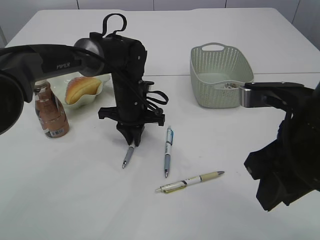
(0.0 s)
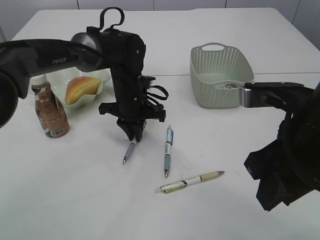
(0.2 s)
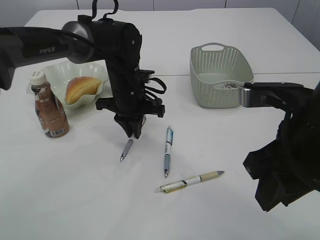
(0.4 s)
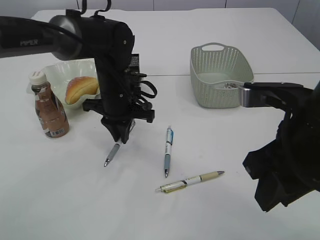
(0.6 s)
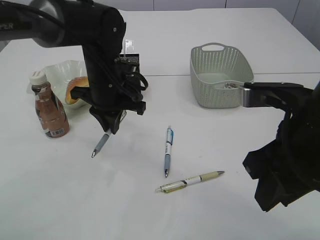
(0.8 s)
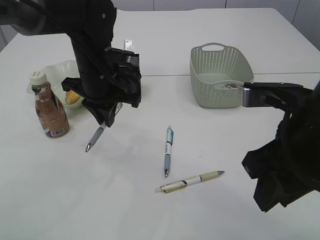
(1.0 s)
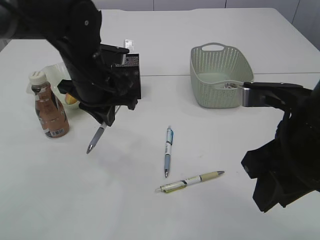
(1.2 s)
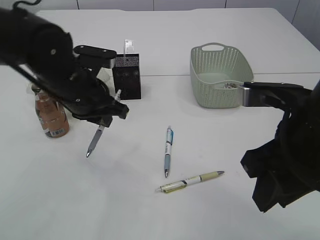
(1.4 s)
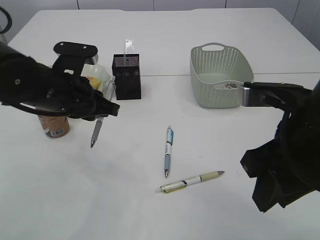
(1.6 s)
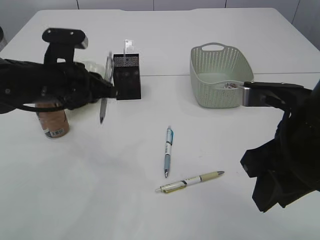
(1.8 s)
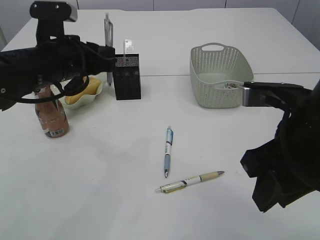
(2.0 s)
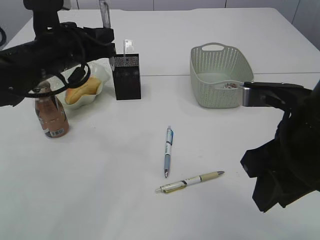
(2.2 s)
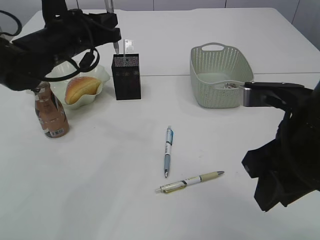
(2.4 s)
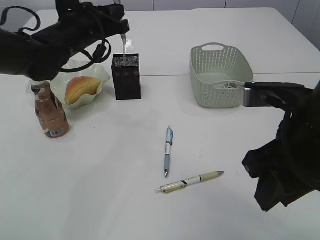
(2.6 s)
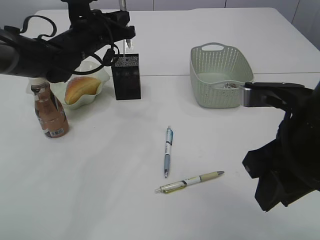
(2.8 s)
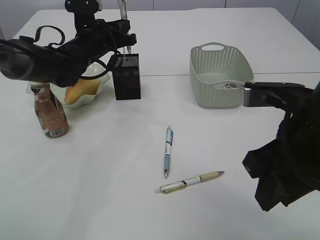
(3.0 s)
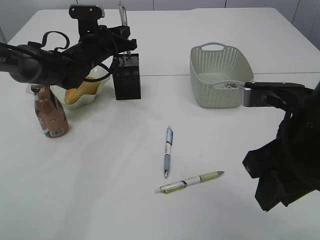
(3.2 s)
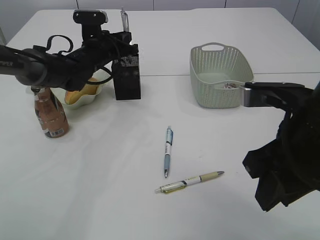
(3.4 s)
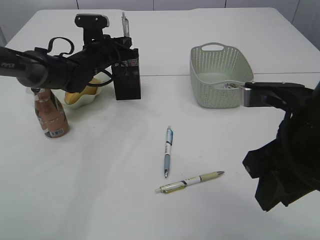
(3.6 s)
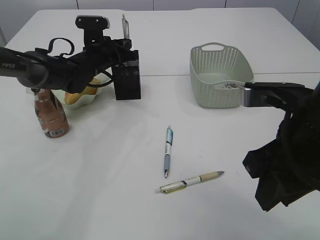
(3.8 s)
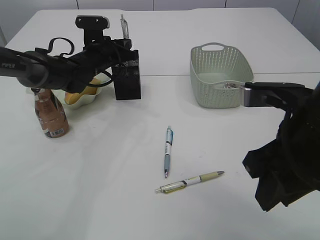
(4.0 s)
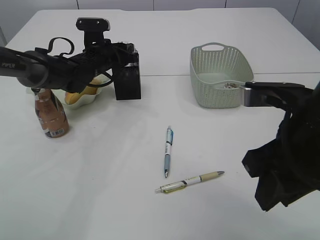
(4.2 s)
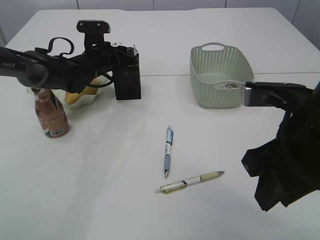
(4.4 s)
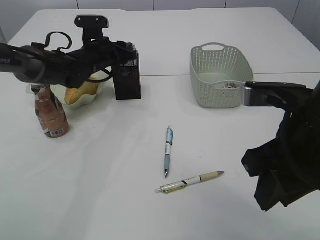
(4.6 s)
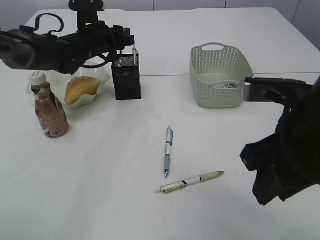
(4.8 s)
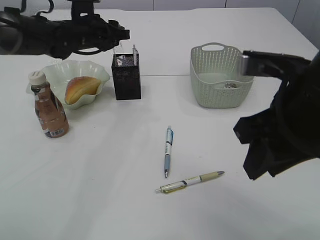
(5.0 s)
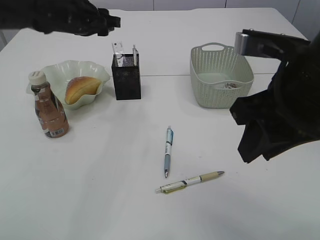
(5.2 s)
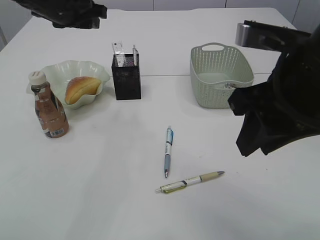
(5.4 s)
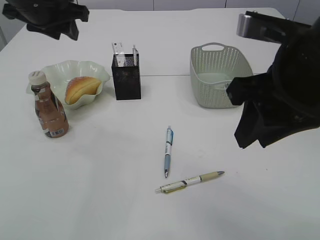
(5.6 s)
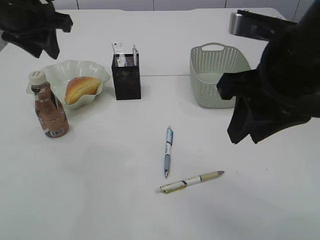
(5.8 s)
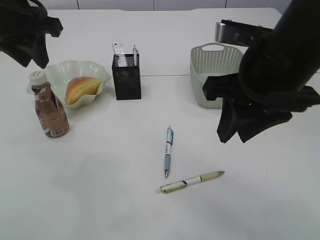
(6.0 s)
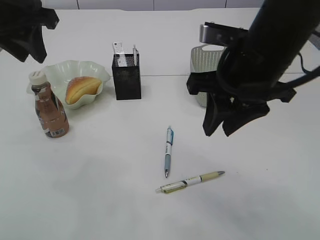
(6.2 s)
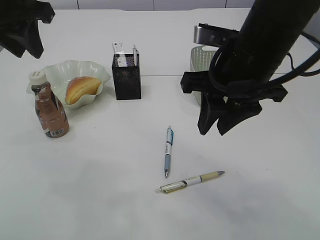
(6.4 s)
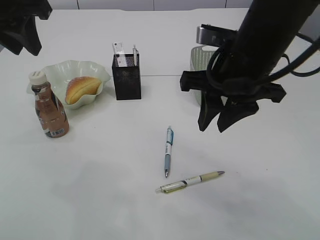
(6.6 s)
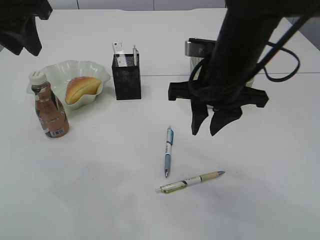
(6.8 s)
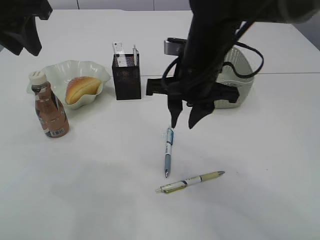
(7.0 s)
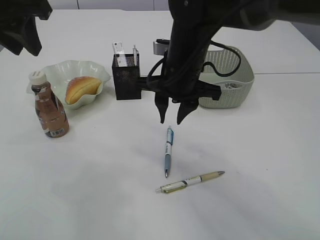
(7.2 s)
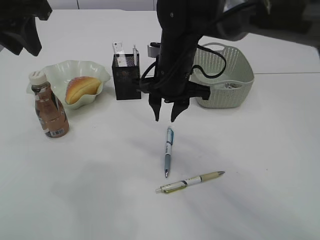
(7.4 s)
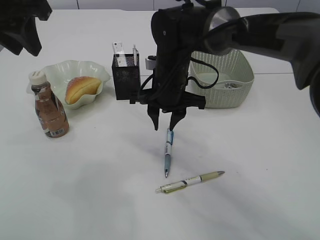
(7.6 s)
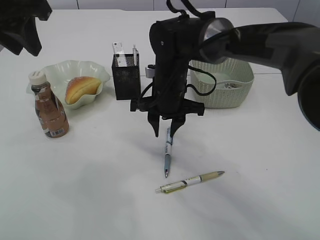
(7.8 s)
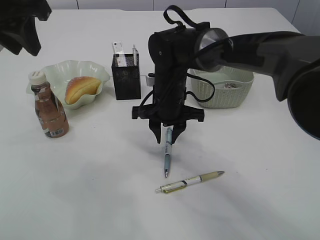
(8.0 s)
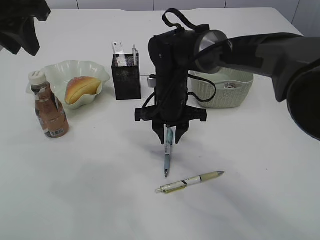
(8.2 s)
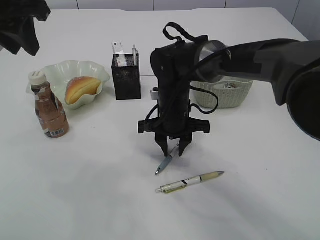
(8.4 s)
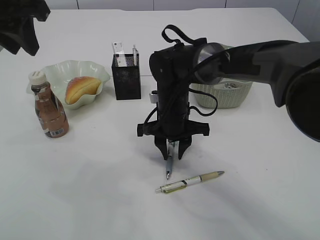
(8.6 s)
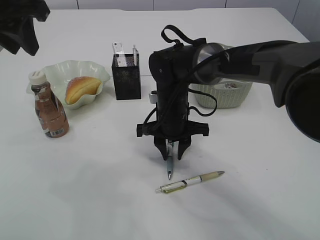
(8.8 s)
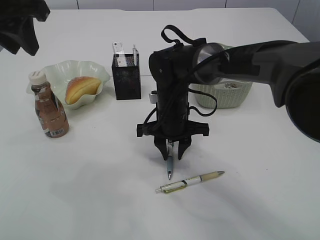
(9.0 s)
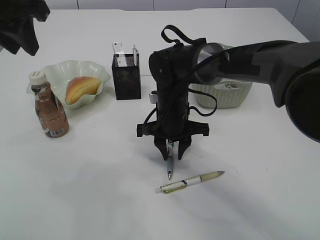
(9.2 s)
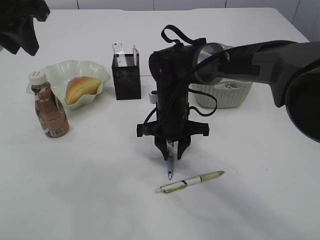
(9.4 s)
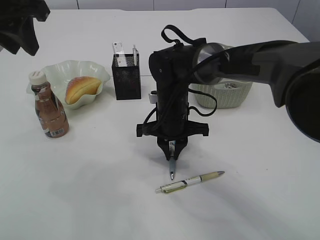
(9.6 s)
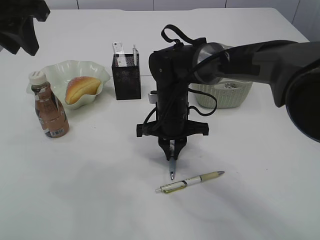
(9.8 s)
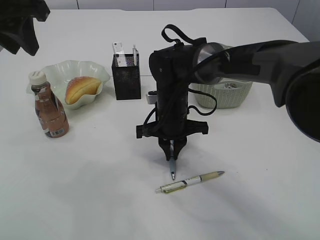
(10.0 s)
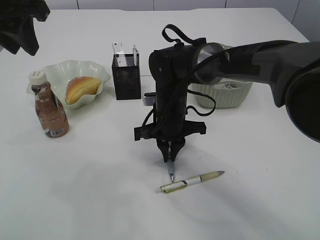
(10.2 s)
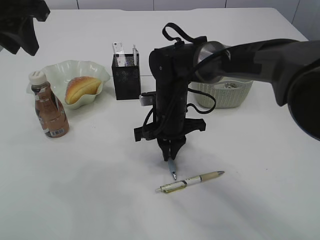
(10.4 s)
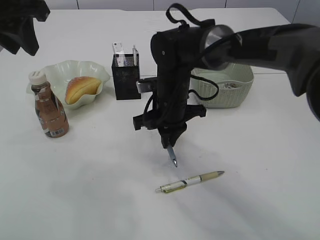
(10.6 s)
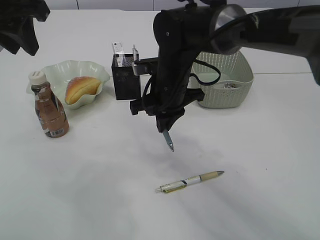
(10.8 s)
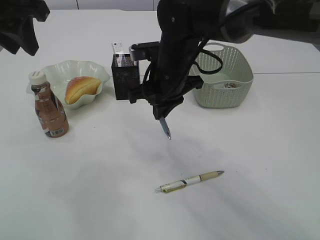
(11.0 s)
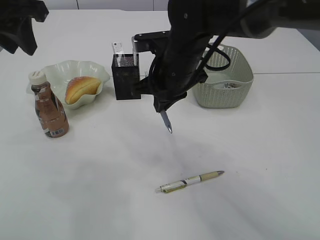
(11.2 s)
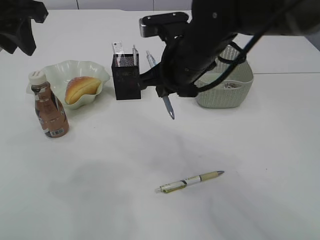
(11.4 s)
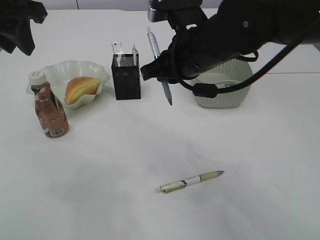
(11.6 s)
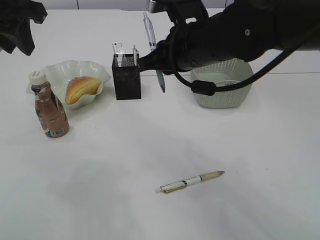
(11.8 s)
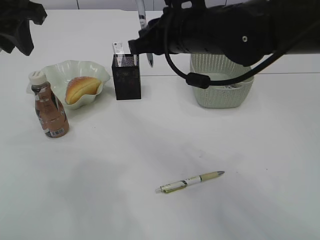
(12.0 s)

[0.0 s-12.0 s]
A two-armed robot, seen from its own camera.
Step, 1.6 to 5.0 s: Place the pen into the pen holder.
Step, 5.2 to 11.2 s: Pick up the pen with right arm.
0.0 to 1.6 s: The left gripper moves backward, upward and to the left, approximately 15 cm.
1.6 to 3.0 s: The left gripper goes some 15 cm forward.
3.0 to 4.4 s: The left gripper travels downward by roughly 5 cm, and opens its fingers.
4.4 to 6.0 s: The right gripper goes approximately 5 cm forward. The left gripper shifts some 25 cm upward and backward.
6.0 to 7.6 s: The right gripper moves forward, downward and to the left, some 20 cm.
7.6 to 9.0 s: The right gripper moves downward, approximately 5 cm.
9.0 to 10.4 s: The right gripper closes up.
10.4 to 12.0 s: The right gripper travels upward by about 15 cm.

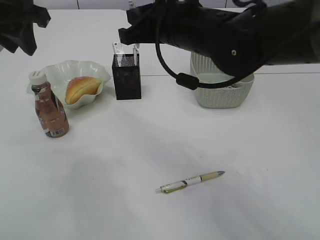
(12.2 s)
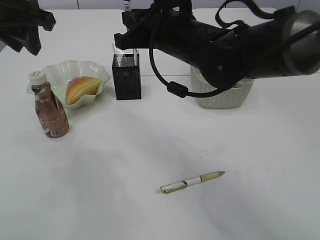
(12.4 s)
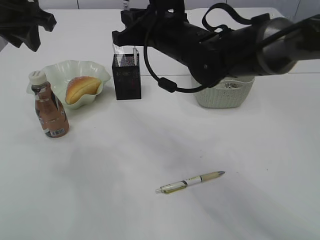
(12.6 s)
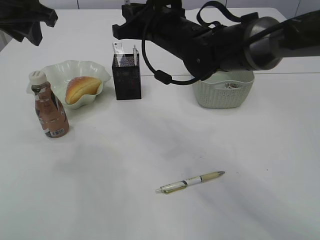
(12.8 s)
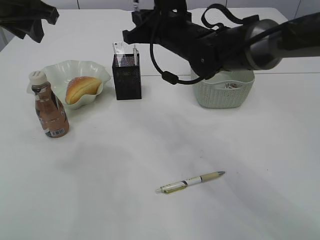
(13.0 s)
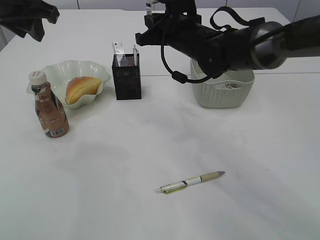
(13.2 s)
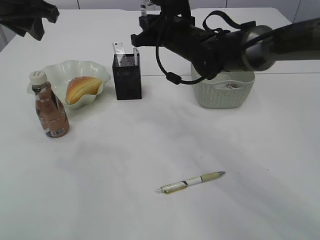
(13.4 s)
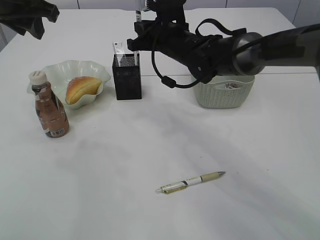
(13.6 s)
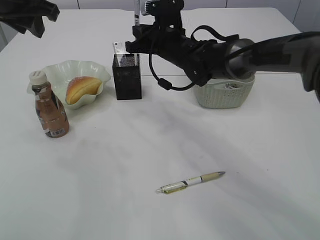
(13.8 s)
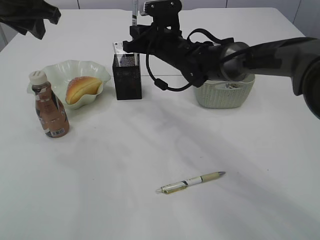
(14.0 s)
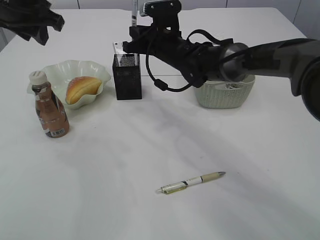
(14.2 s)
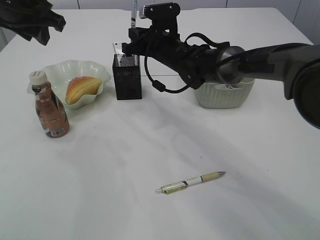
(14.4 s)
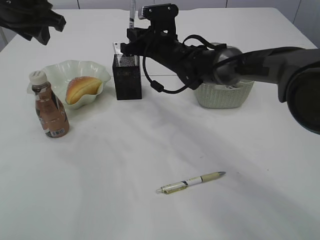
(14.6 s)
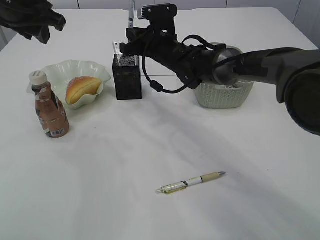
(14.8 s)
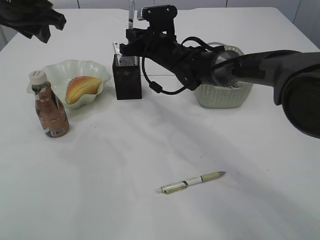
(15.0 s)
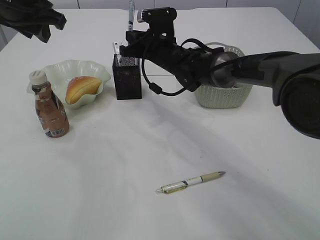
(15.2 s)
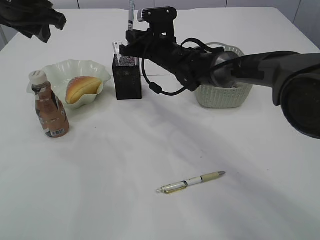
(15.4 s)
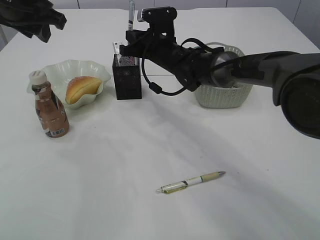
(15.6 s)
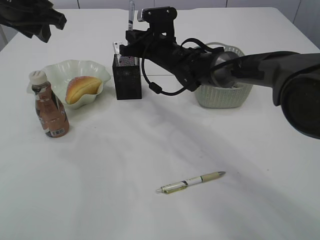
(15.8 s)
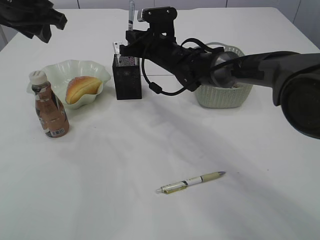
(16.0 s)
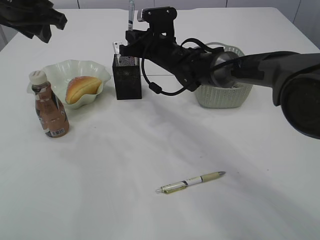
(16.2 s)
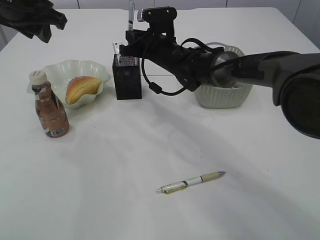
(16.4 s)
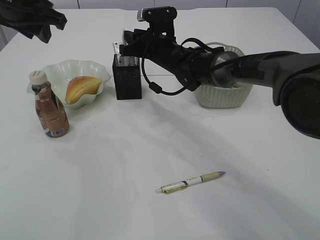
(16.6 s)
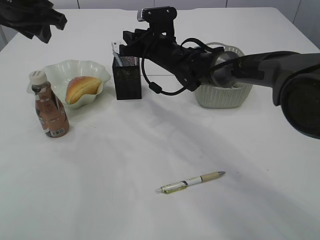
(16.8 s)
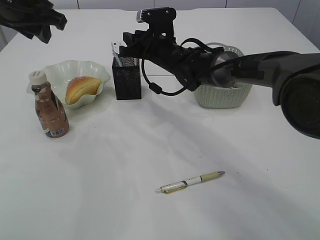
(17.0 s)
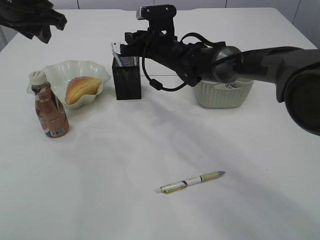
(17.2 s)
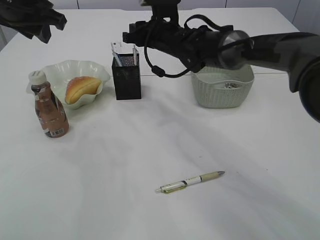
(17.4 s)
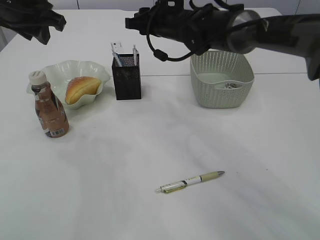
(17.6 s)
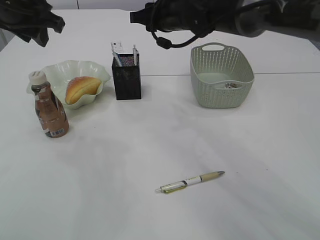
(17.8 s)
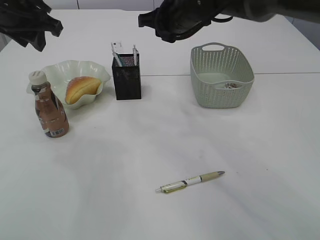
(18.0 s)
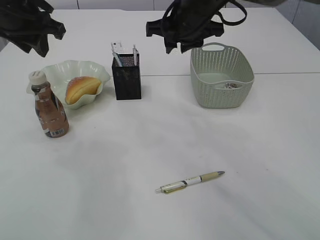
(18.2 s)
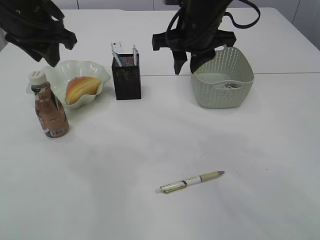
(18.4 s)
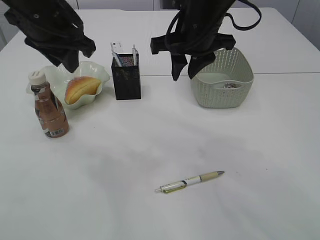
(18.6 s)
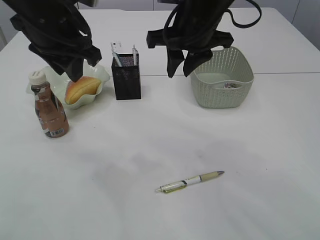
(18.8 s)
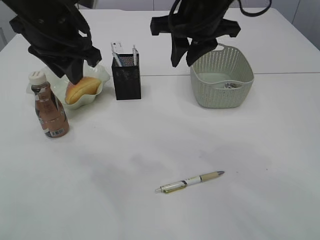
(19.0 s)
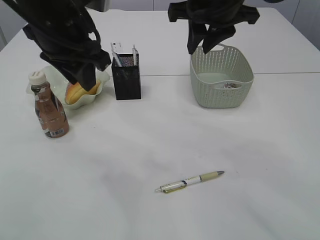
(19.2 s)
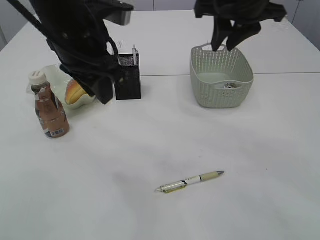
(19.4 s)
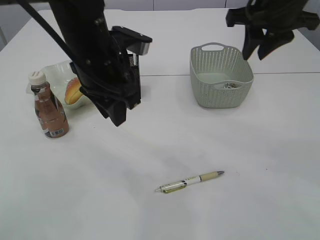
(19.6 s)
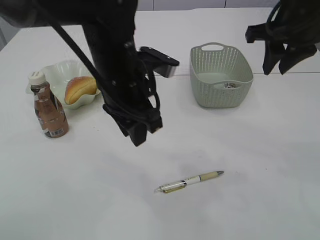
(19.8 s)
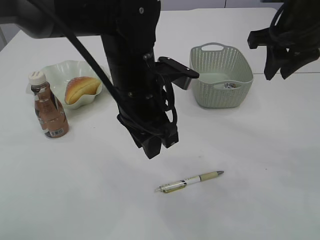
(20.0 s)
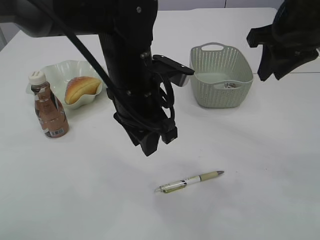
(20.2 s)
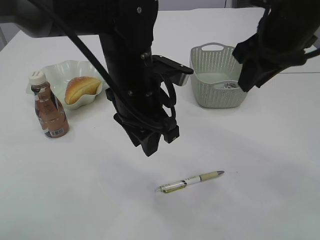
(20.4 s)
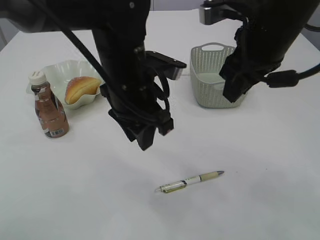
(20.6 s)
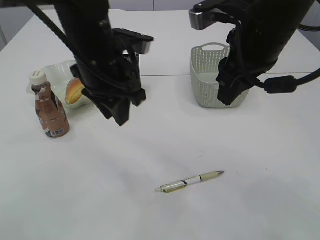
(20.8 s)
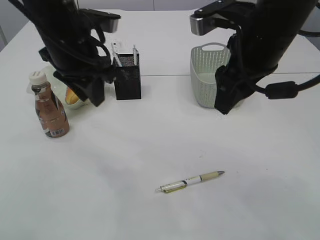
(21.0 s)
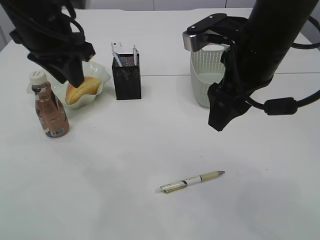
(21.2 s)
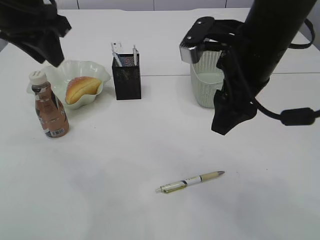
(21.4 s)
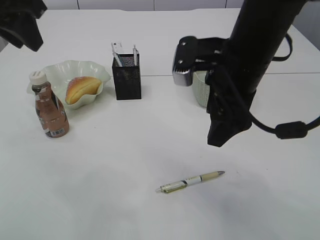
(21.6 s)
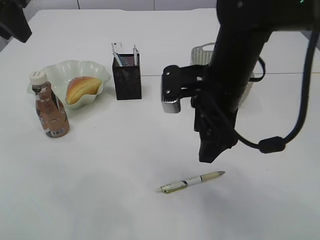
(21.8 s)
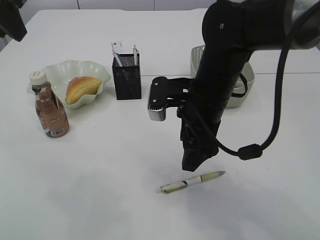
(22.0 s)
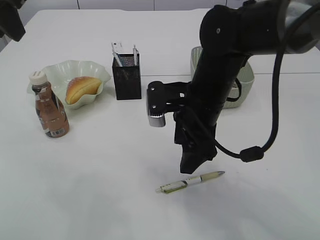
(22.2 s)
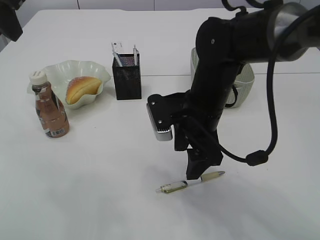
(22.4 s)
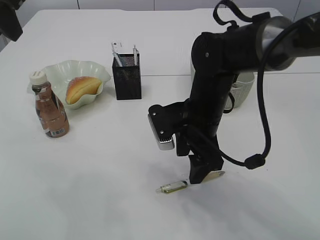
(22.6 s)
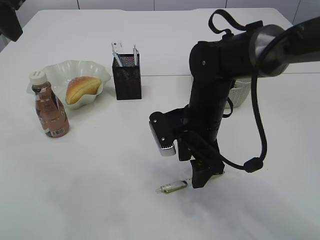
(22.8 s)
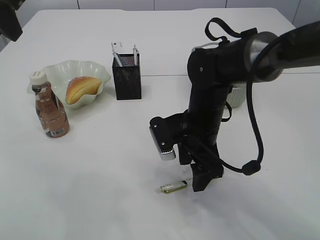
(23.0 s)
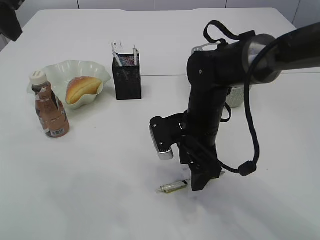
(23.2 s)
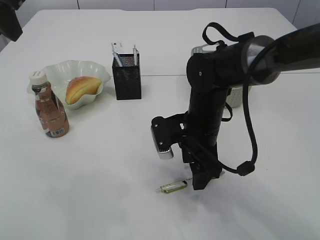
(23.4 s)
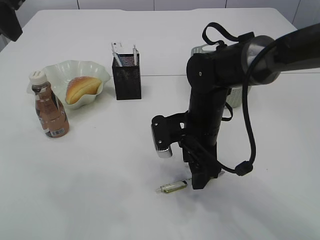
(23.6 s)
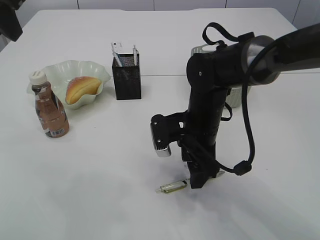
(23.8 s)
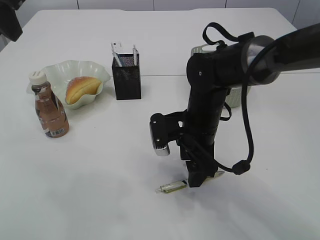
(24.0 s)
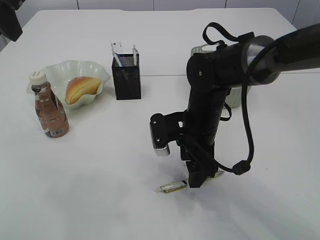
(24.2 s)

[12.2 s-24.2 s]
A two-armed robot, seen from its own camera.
Step, 12.2 to 17.4 s: Place the pen into the pen holder.
12.2 to 13.8 s: The right gripper heads forward and downward, covering approximately 15 cm.
13.8 to 15.2 s: The grippers make only small movements.
15.2 to 16.6 s: The two grippers keep their place.
16.6 to 18.2 s: The right gripper shifts about 15 cm upward and backward.
18.2 to 19.8 s: The right gripper goes about 15 cm to the right and backward. The left gripper moves to the right, downward and backward, approximately 20 cm.
19.8 to 21.2 s: The left gripper moves to the left and upward, roughly 15 cm; the right gripper shifts some 10 cm to the left and backward, and opens its fingers.
21.2 to 22.6 s: The right gripper moves downward and to the left, some 15 cm. Meanwhile the left gripper moves upward and to the left, roughly 10 cm.
22.6 to 24.2 s: The grippers move only a little.
